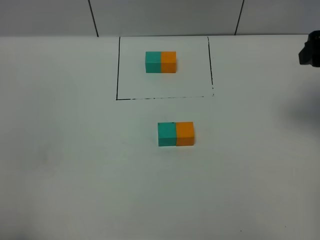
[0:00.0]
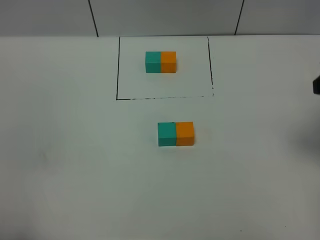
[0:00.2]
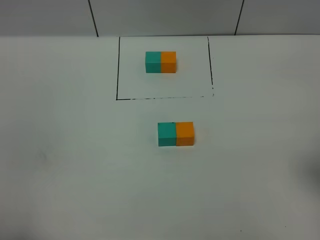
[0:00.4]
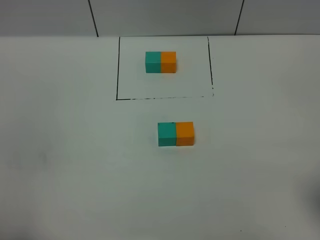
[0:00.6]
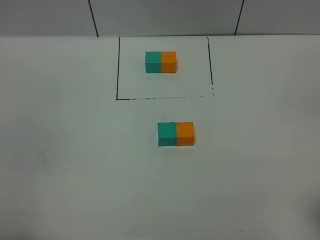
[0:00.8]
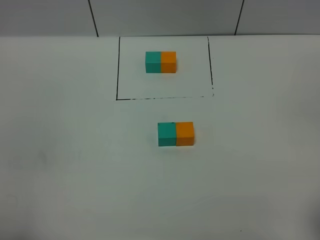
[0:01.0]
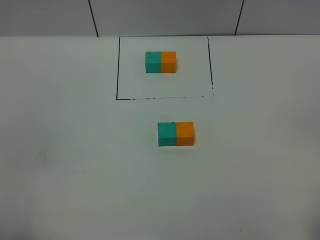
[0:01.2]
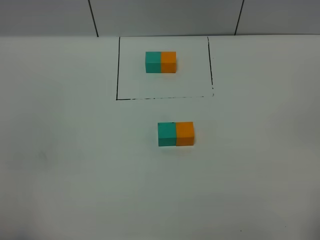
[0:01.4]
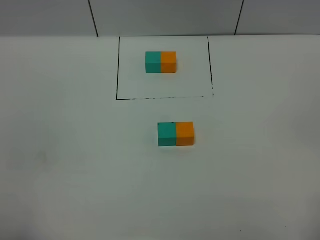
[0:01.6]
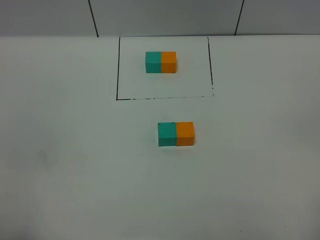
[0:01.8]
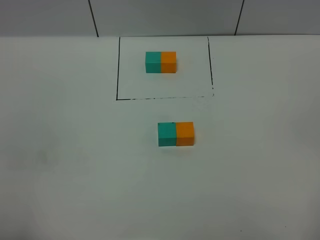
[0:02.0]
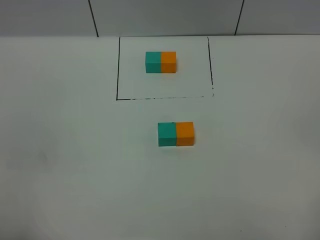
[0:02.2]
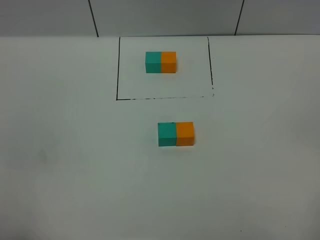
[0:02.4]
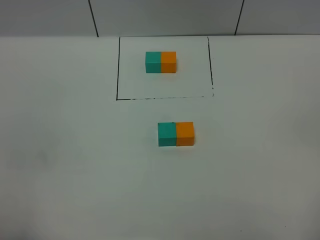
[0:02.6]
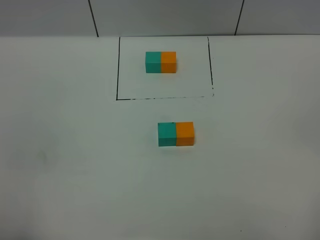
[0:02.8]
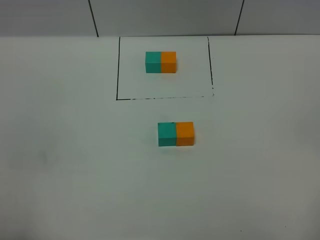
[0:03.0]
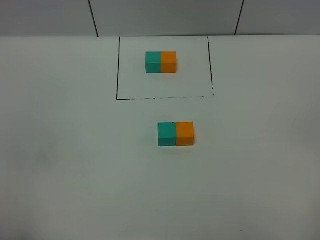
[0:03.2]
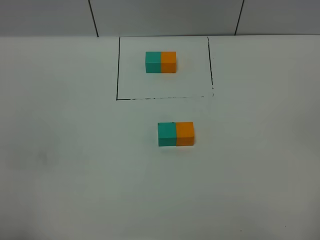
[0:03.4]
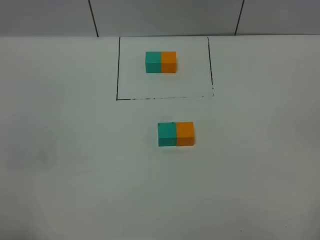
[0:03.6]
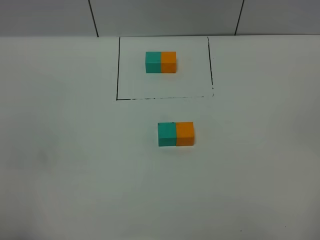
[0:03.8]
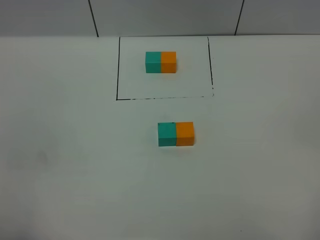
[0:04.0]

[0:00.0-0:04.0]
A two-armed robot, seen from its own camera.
Task of the whole recording: According to the building block template in front, assemble the scattered blocks together.
0:00.0 to 0:01.4: The right gripper heads backward, covering approximately 25 cm.
0:02.6 to 0:04.0: Both grippers stay put.
